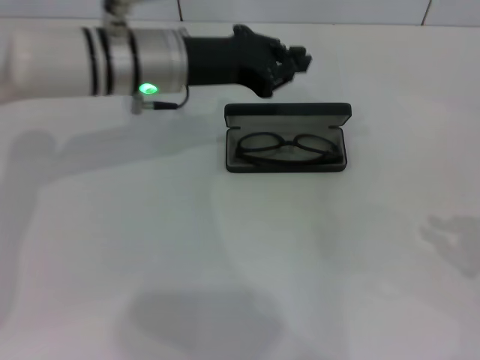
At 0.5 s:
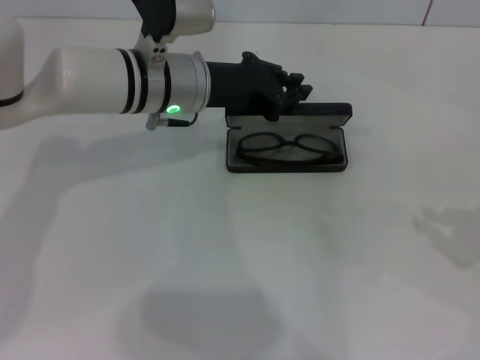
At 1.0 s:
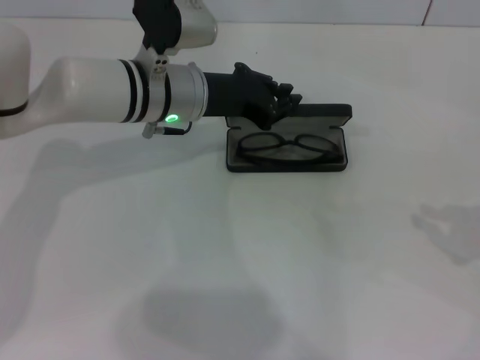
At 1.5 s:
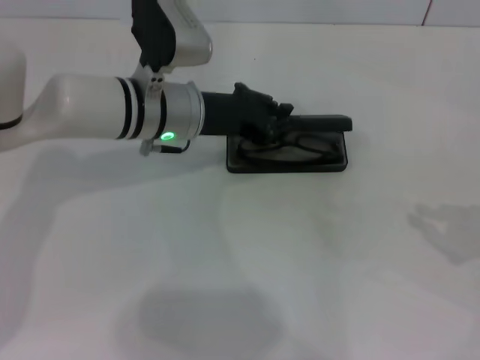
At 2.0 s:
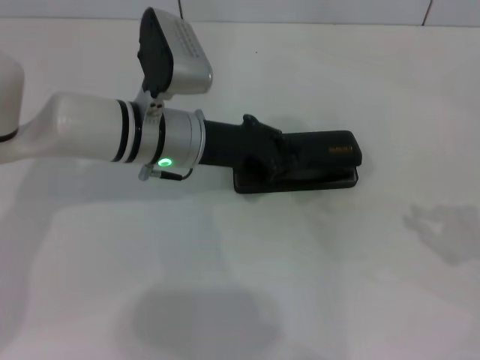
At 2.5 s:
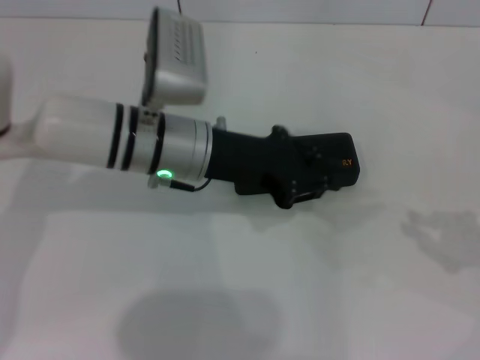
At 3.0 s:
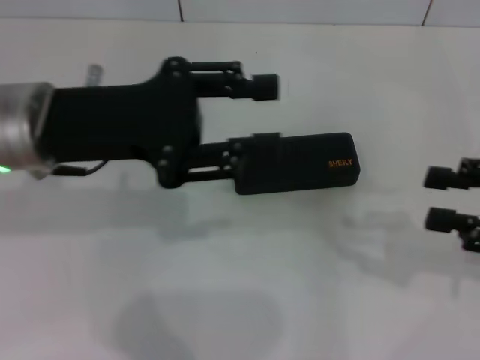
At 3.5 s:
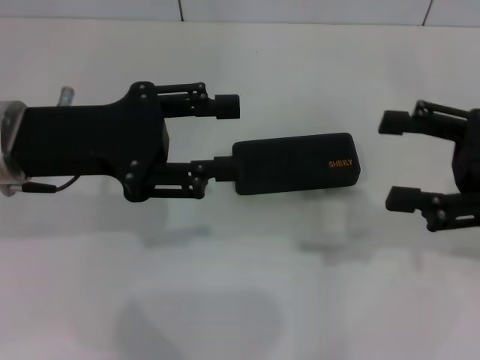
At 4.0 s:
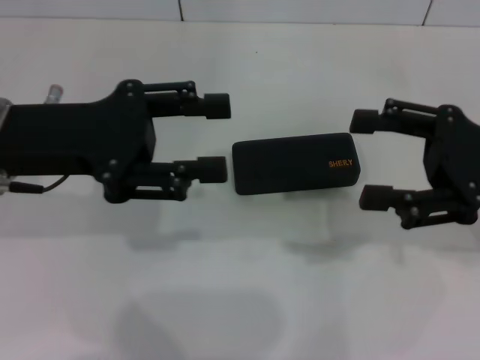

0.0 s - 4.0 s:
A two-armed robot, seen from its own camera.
Step, 0.0 s - 2.0 s: Close the glasses case with your left hand.
0.0 s - 2.0 s: The left gripper shifts approximately 5 cm downward.
2.0 s - 4.0 s: The right gripper is displaced to the left and forward by about 10 cm, and opens its fingers. The left gripper goes roughly 15 cm to the left, upward and backward, and opens its fingers.

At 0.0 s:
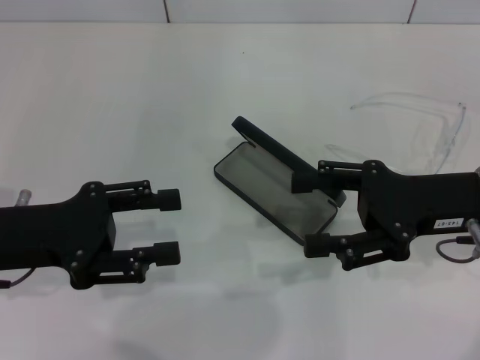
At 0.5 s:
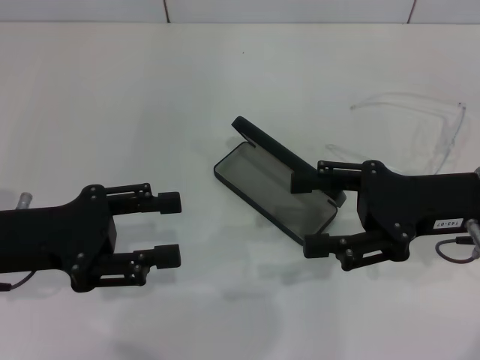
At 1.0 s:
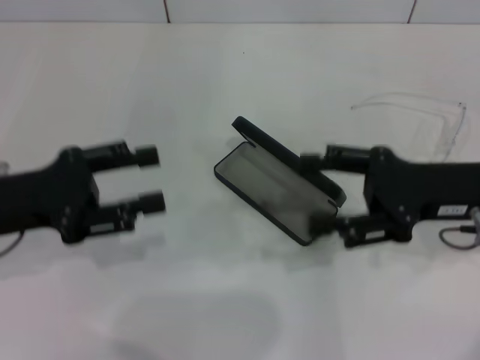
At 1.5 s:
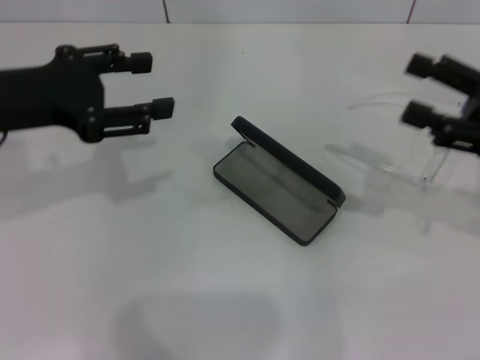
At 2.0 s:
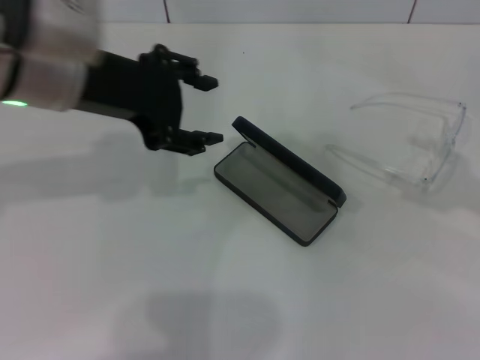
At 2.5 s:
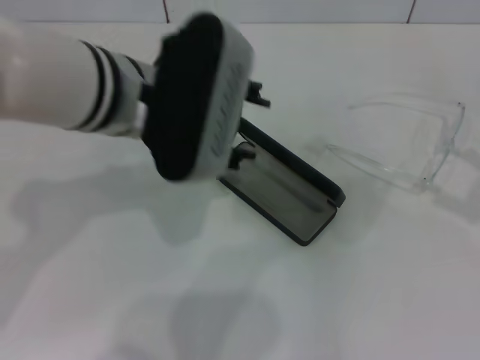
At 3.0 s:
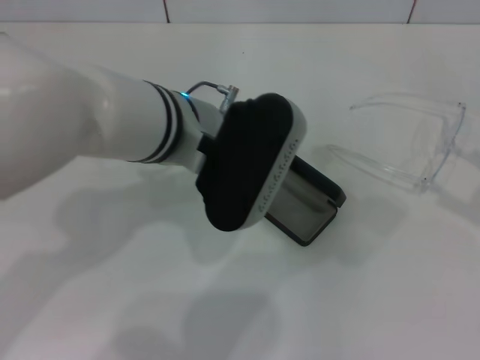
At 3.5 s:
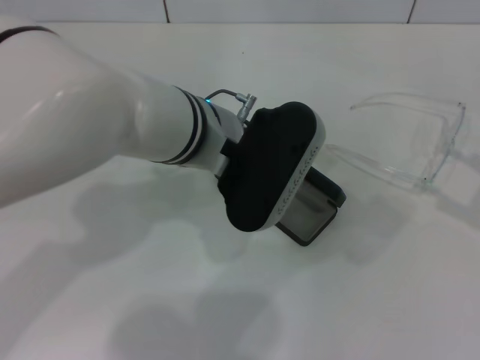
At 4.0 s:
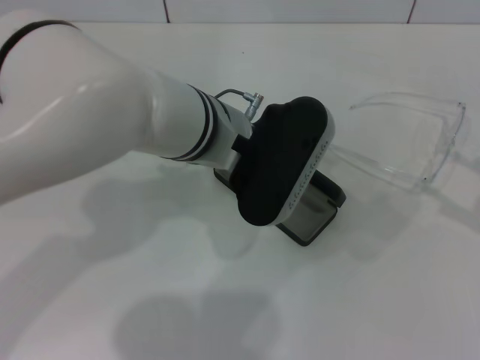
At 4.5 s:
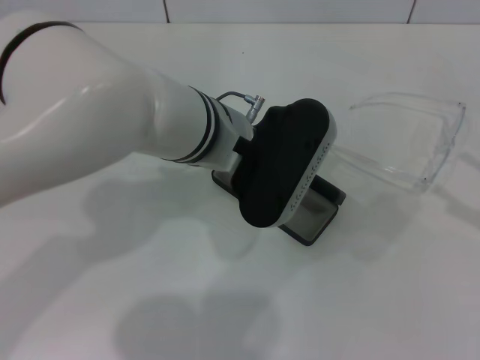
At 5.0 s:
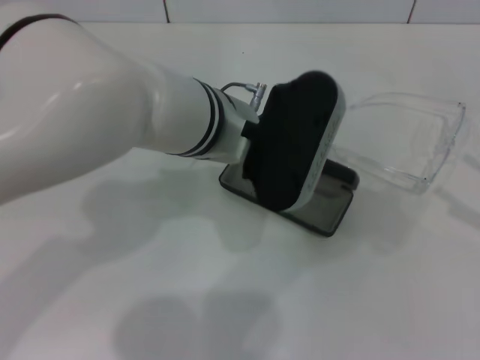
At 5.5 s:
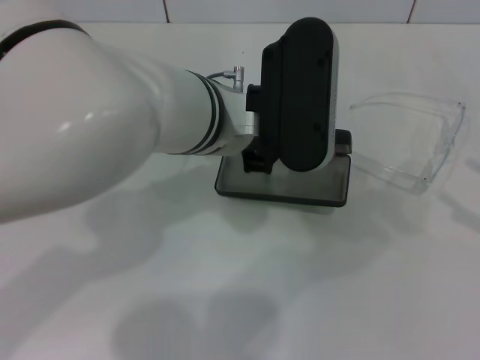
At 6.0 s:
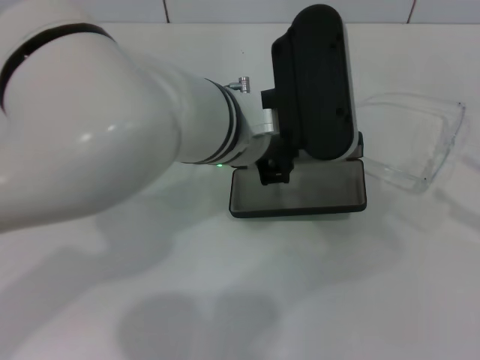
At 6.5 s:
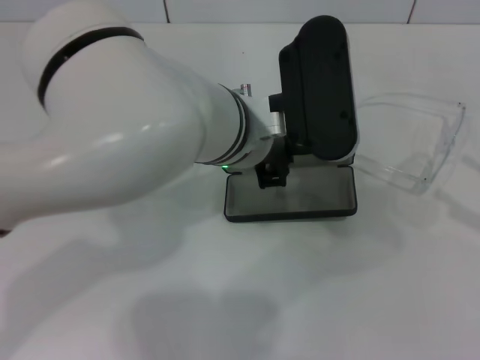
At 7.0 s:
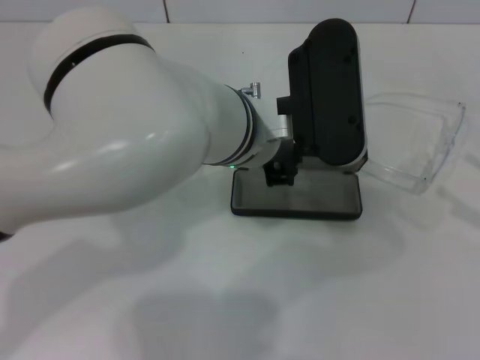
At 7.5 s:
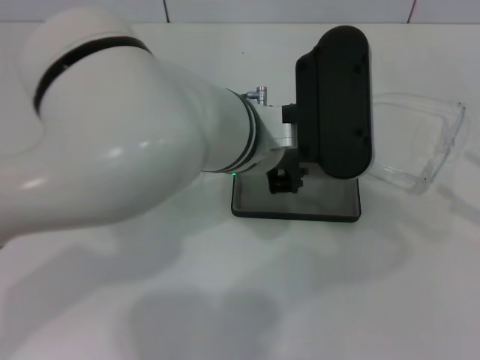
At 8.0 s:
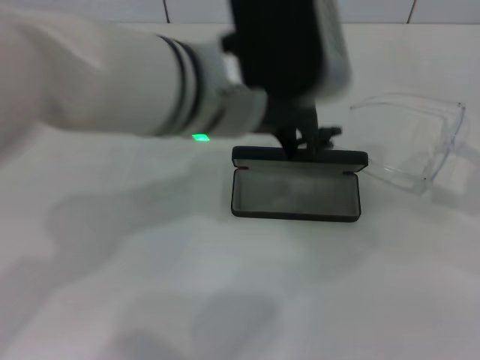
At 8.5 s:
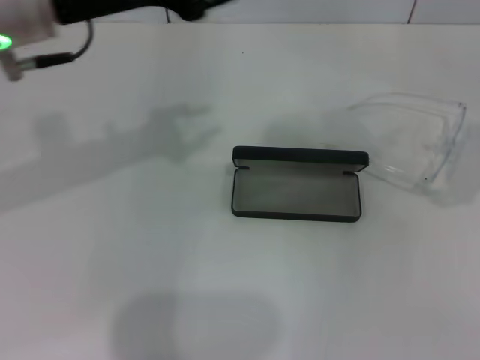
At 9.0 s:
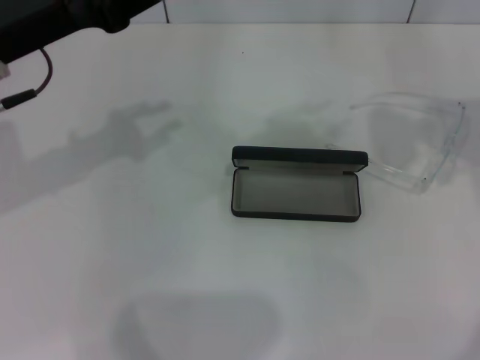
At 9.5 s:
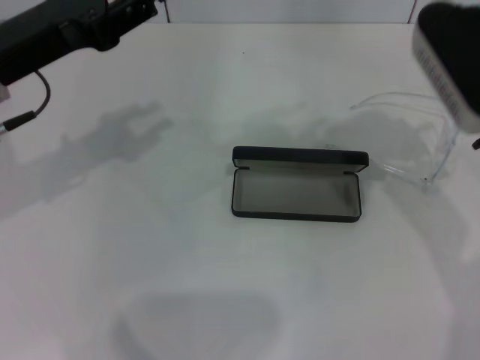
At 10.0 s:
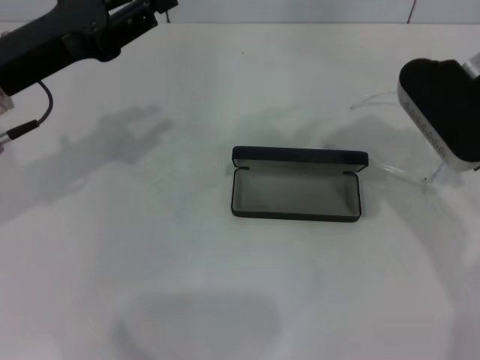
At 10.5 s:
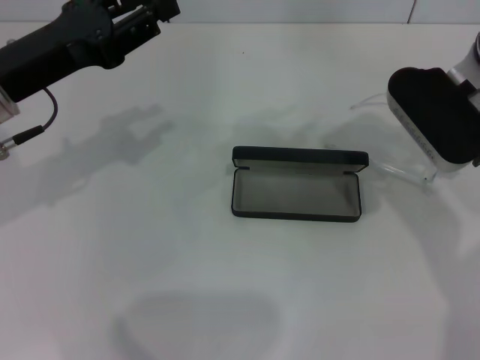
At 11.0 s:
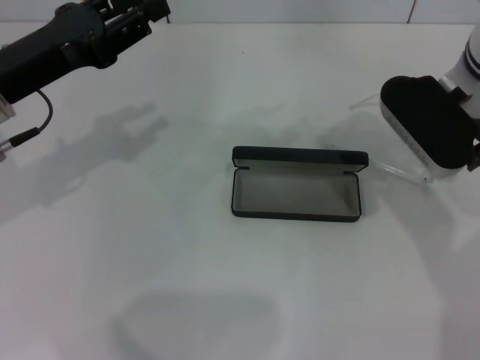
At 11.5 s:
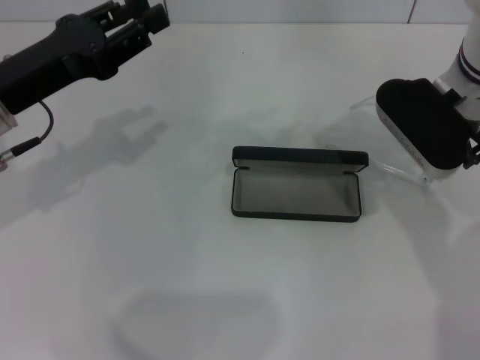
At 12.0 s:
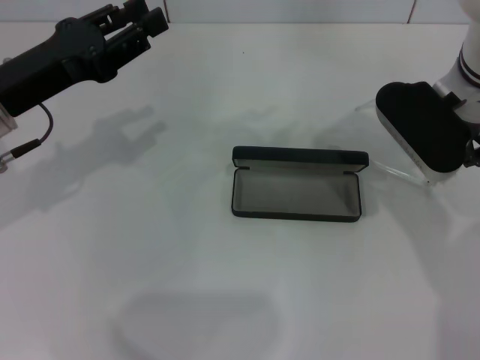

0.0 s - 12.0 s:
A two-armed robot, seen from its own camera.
Step, 0.0 s - 4.5 s: Grab the glasses case with your left hand.
Step, 5.0 s - 7.0 s: Place the glasses case in the center of the table with your left hand.
0.0 s - 2.0 s: The right gripper travels to the right by roughly 15 cm. Meanwhile the left gripper heads upward, to the right and forward, covering about 15 cm.
2.0 s - 4.0 s: The right gripper moves approximately 5 cm; the left gripper moves to the right and downward, roughly 15 cm.
4.0 s - 6.0 s: The left gripper closes its fingers.
6.0 s - 8.0 s: The right gripper shifts by approximately 5 cm. The left gripper moves upward, roughly 5 cm, and opens its fingers.
8.0 s - 10.0 s: The left gripper travels to the left by about 20 cm, while the right gripper is displaced to the left and forward by roughly 25 cm.
10.0 s - 12.0 s: The right gripper closes.

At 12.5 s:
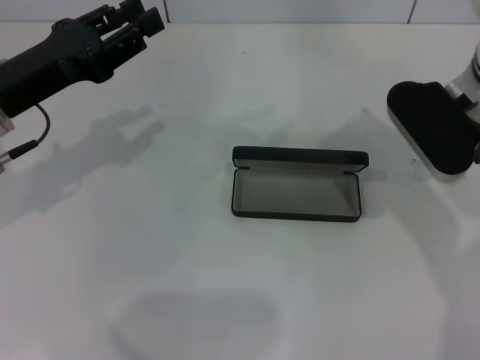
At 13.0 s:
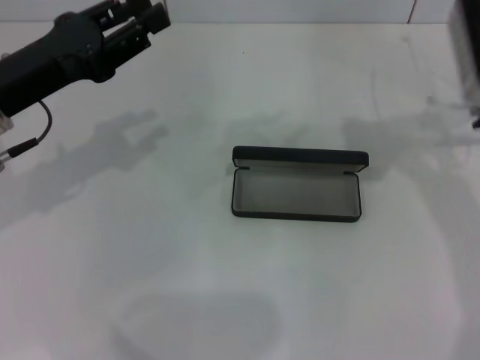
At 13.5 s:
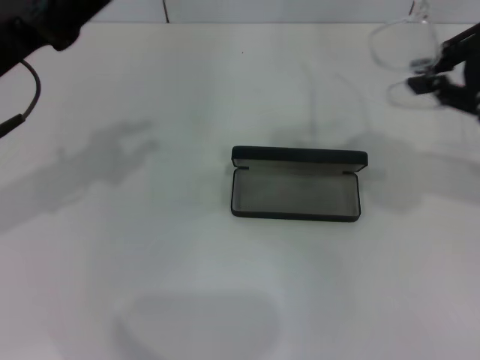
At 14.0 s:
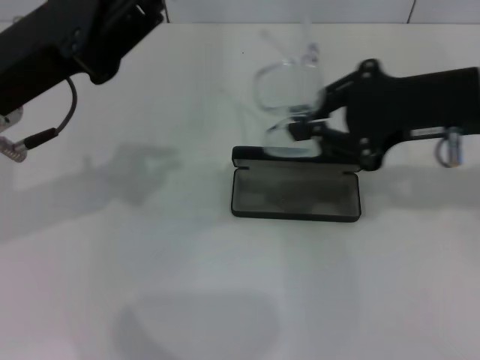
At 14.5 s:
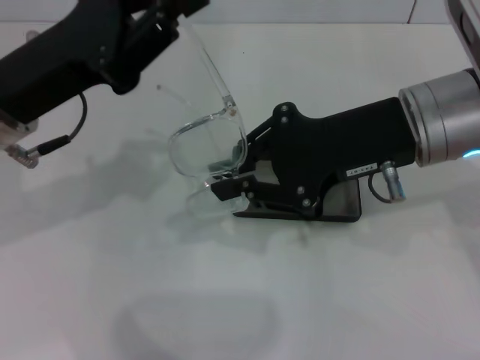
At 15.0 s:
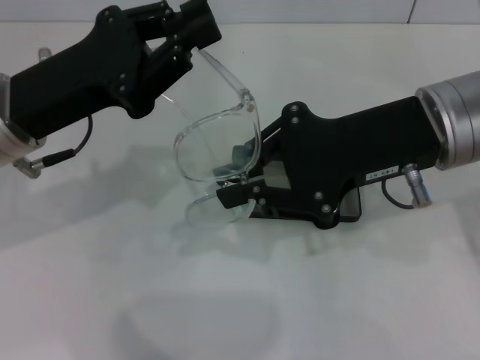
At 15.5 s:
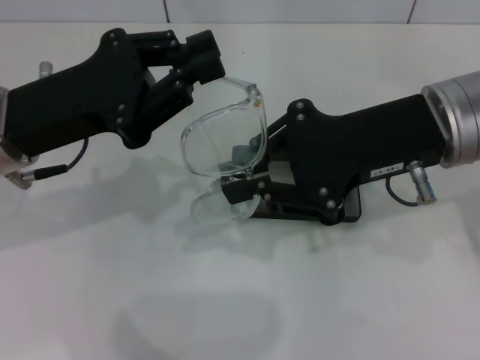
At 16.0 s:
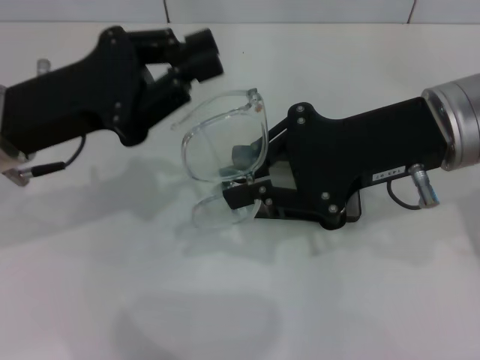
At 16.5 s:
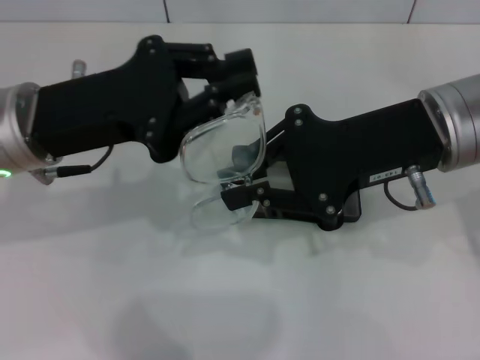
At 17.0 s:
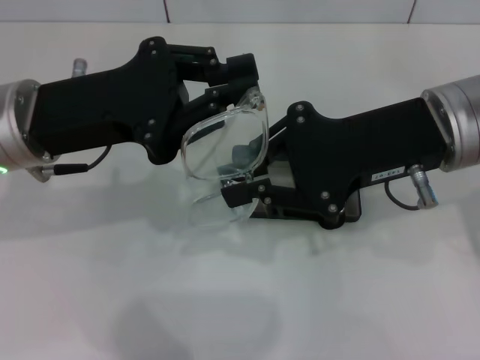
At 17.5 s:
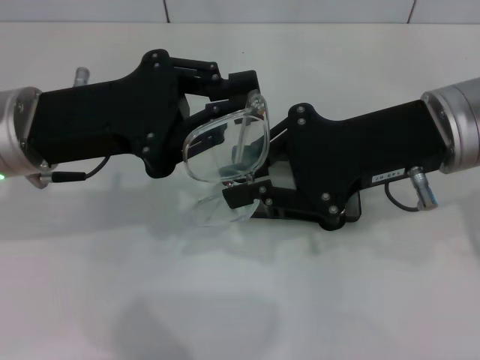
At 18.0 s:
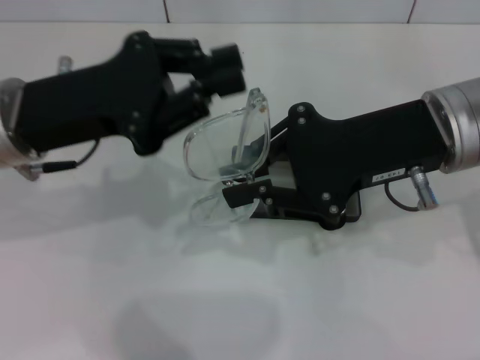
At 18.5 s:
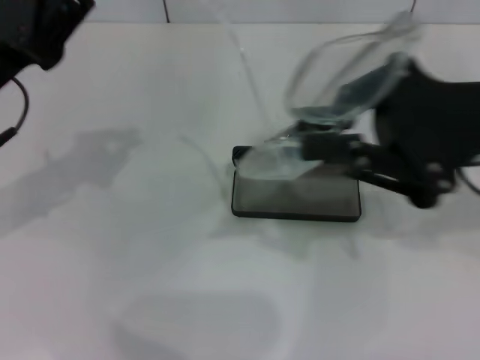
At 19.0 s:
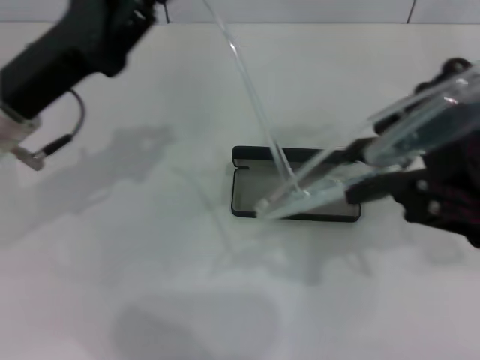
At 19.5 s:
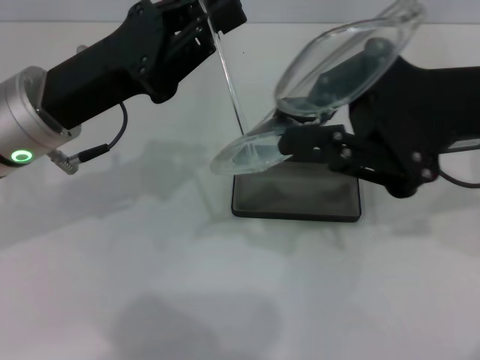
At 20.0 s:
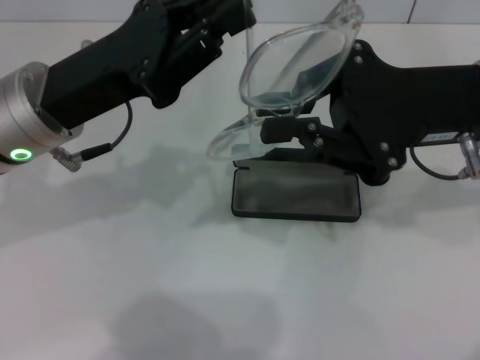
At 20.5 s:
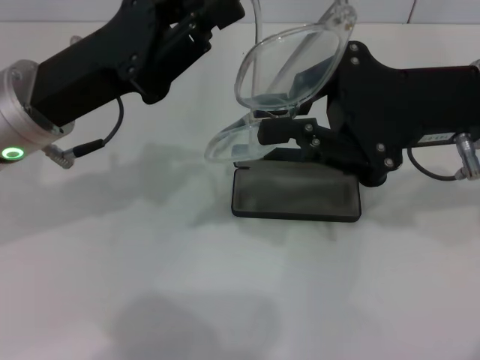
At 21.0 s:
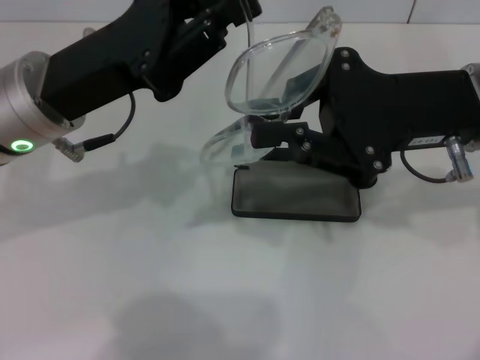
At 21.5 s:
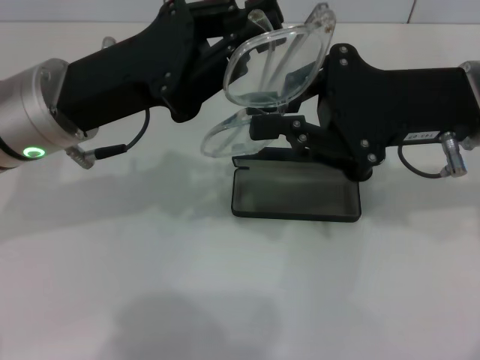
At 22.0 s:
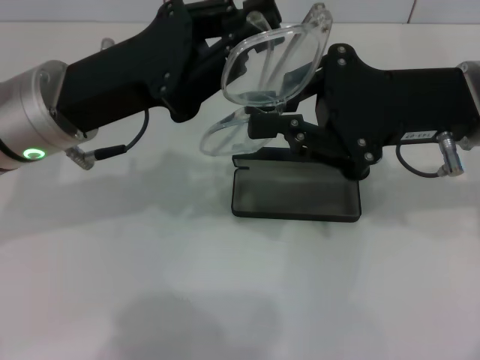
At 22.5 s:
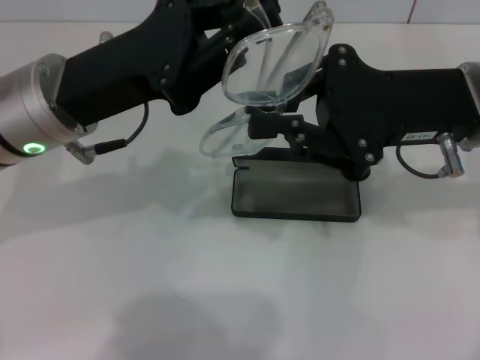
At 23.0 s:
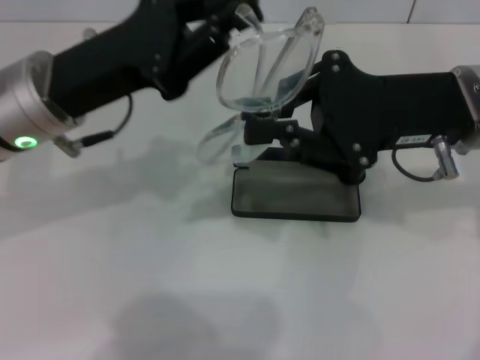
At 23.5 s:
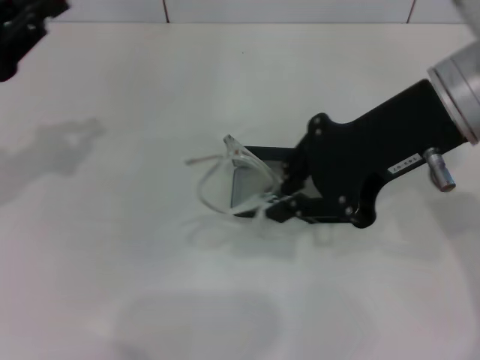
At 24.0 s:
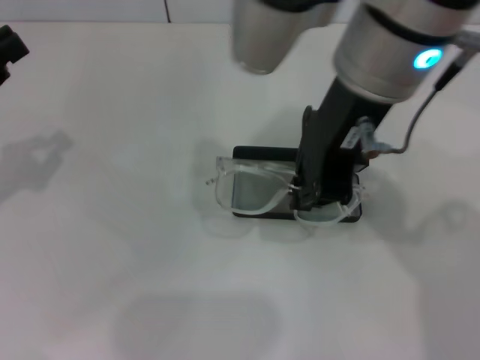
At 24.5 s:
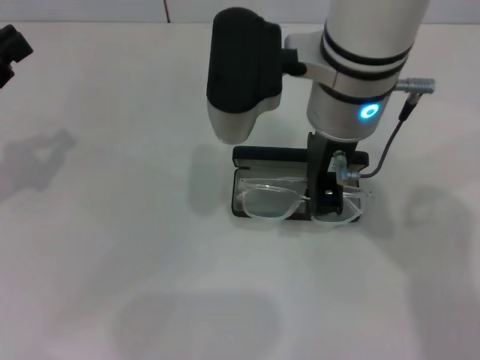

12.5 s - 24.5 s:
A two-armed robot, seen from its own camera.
Step, 12.5 s - 22.0 s: Lift the glasses with your right hand.
12.5 s - 14.5 s: The left gripper shifts by about 5 cm, and closes up, while the right gripper is displaced backward by some 10 cm, and goes to the right and returns, roughly 10 cm each way.
16.5 s - 18.5 s: The left gripper travels to the left by about 5 cm. Meanwhile the right gripper heads to the right, covering some 5 cm.
18.5 s - 20.5 s: The left gripper shifts about 5 cm to the right.
20.5 s - 22.5 s: The grippers make only small movements.
22.5 s - 24.5 s: The two grippers go about 15 cm to the left.
